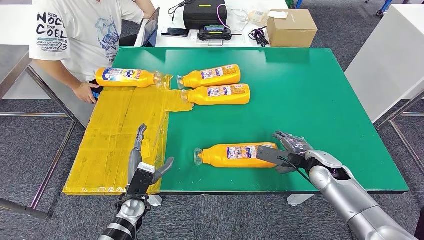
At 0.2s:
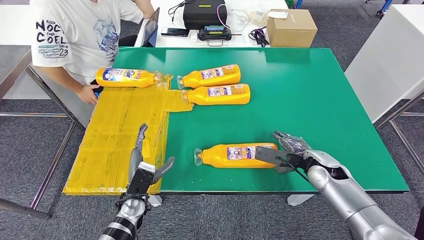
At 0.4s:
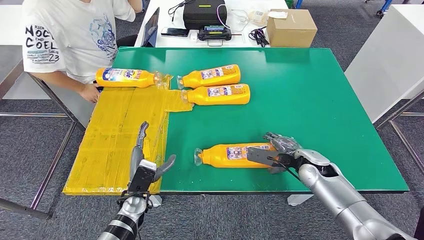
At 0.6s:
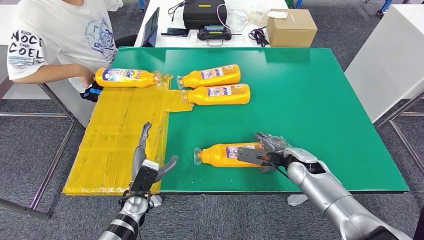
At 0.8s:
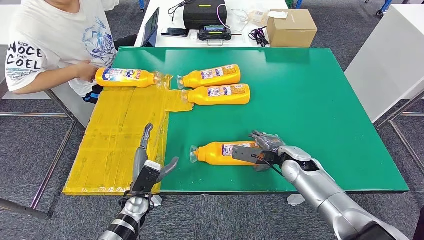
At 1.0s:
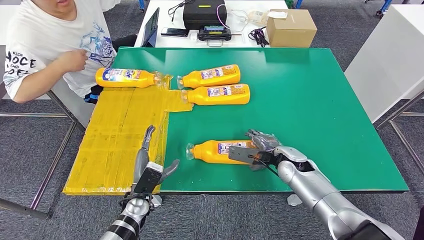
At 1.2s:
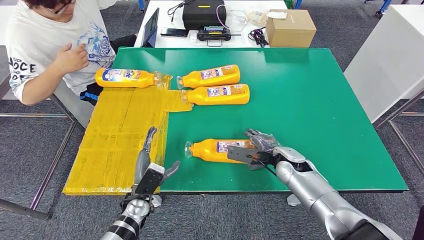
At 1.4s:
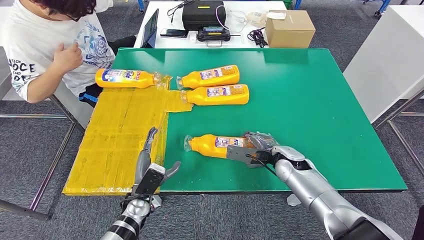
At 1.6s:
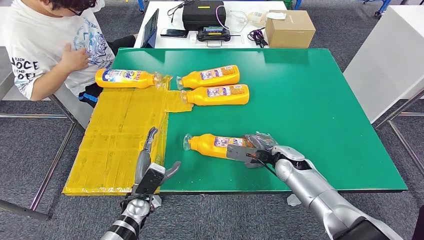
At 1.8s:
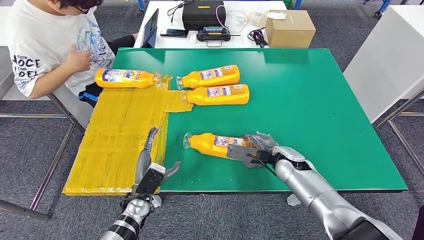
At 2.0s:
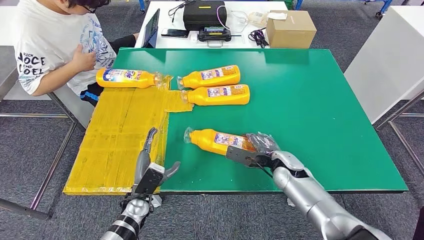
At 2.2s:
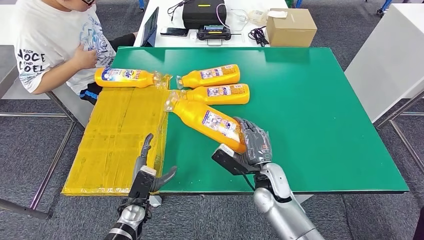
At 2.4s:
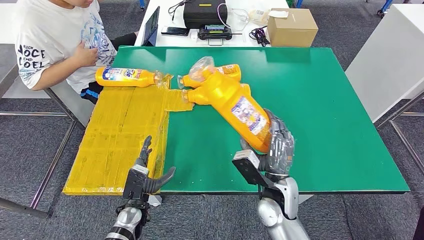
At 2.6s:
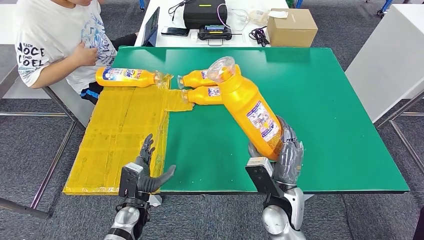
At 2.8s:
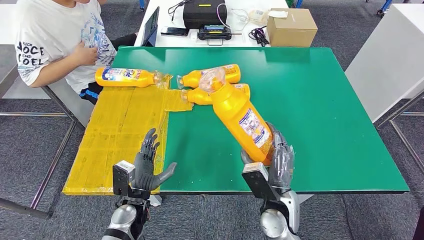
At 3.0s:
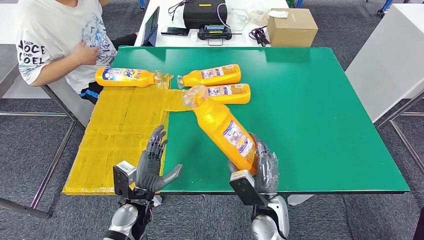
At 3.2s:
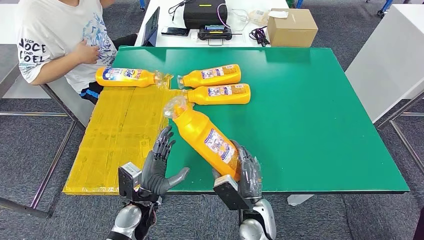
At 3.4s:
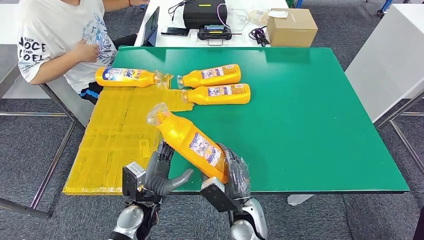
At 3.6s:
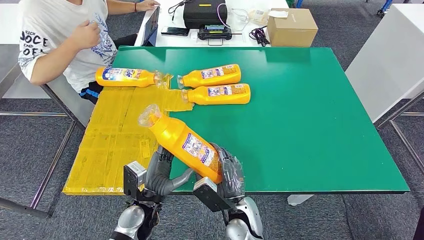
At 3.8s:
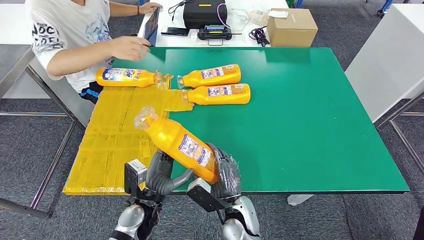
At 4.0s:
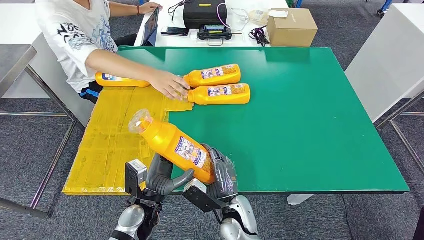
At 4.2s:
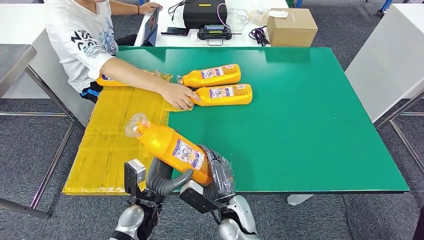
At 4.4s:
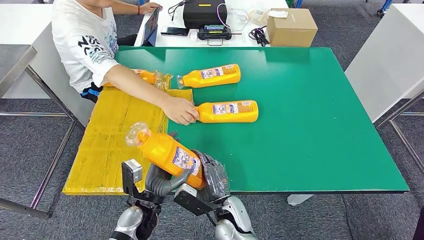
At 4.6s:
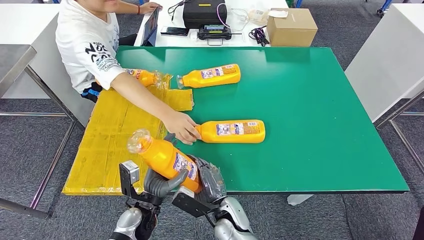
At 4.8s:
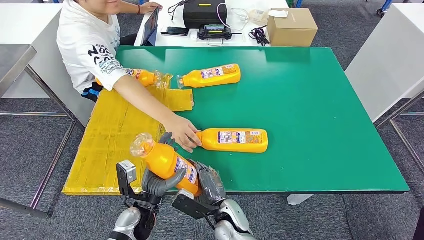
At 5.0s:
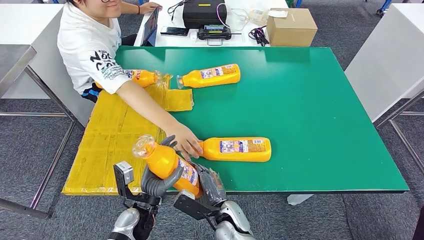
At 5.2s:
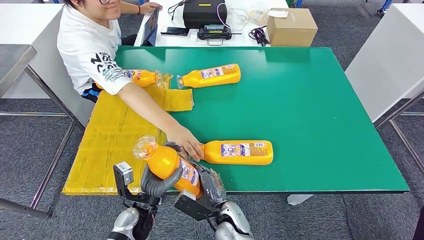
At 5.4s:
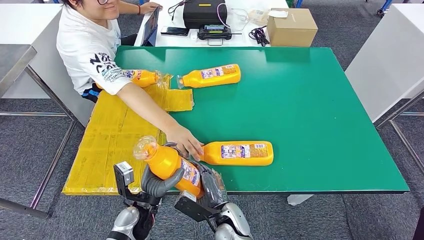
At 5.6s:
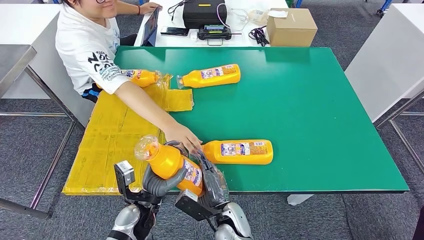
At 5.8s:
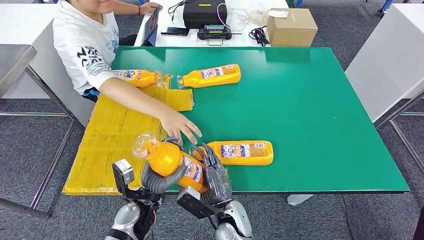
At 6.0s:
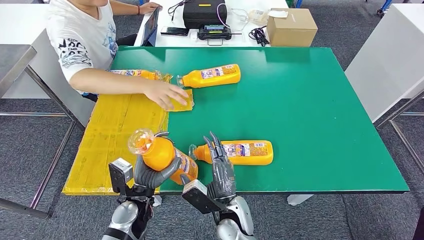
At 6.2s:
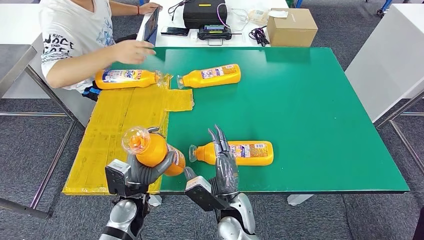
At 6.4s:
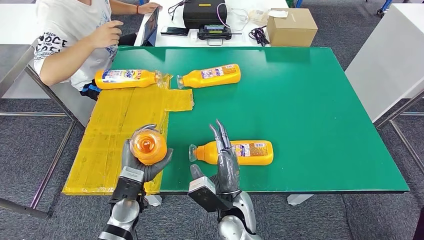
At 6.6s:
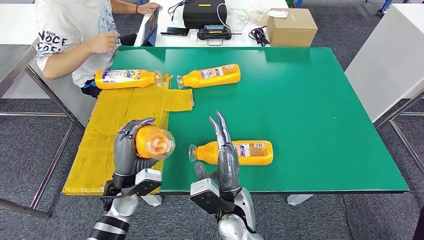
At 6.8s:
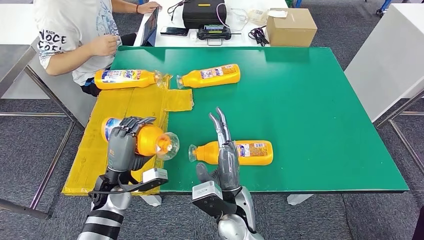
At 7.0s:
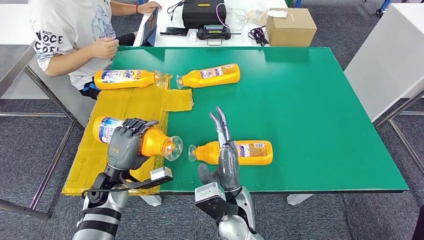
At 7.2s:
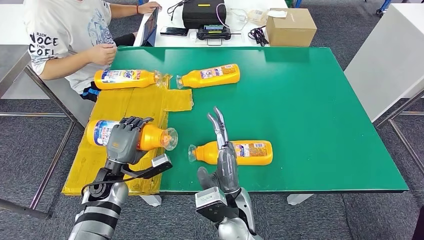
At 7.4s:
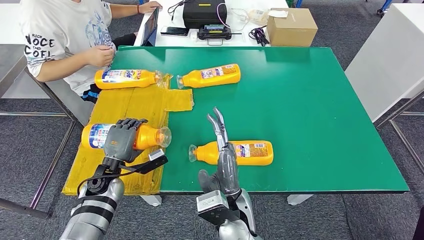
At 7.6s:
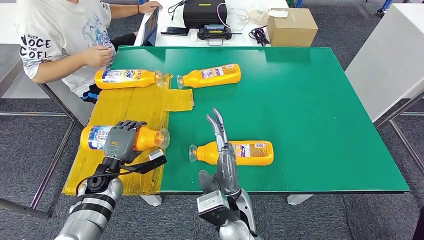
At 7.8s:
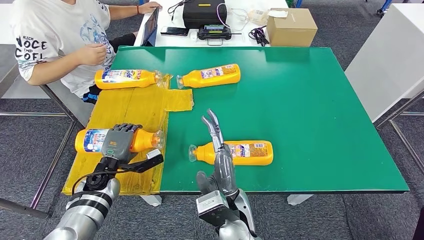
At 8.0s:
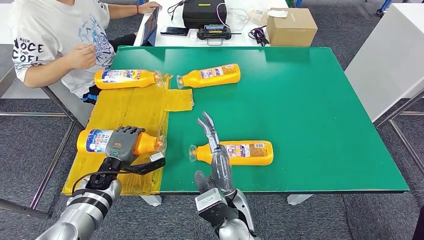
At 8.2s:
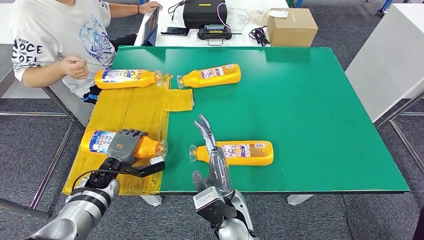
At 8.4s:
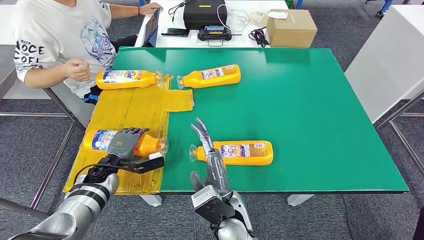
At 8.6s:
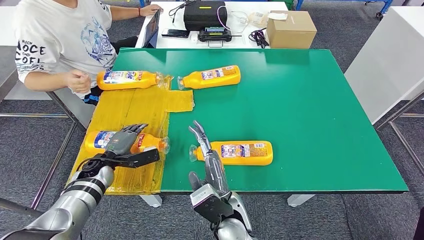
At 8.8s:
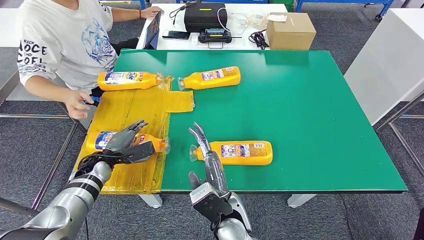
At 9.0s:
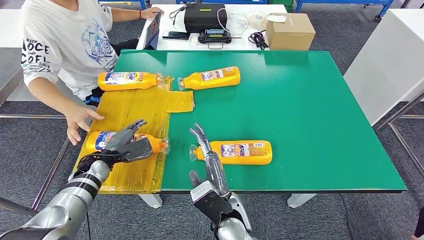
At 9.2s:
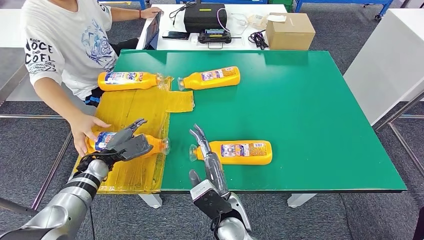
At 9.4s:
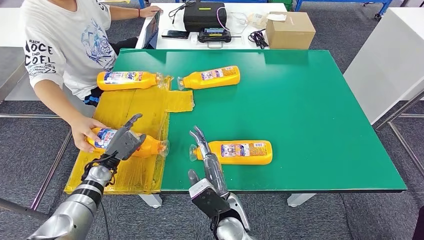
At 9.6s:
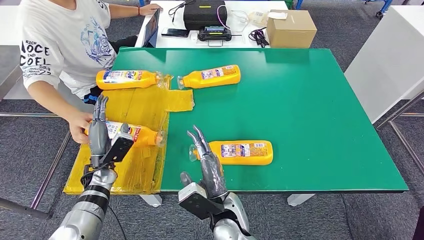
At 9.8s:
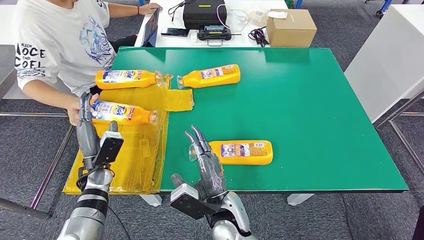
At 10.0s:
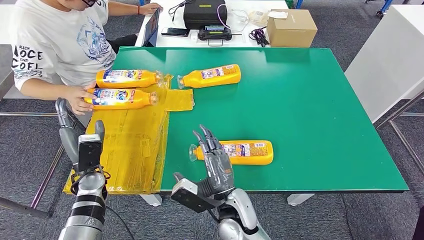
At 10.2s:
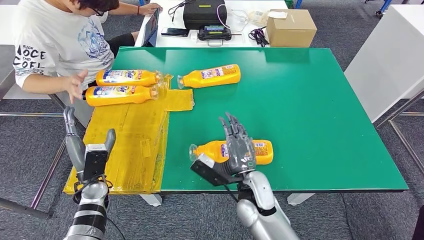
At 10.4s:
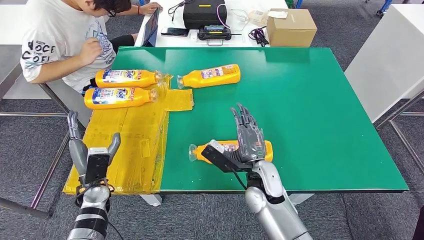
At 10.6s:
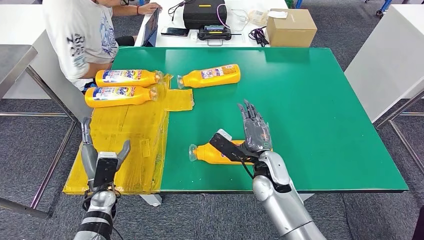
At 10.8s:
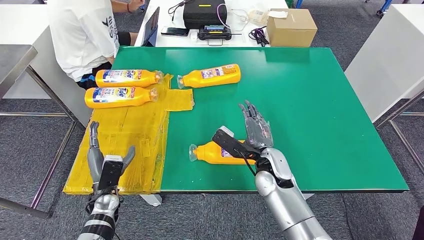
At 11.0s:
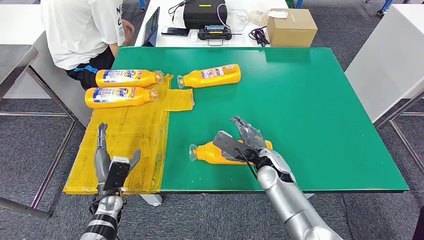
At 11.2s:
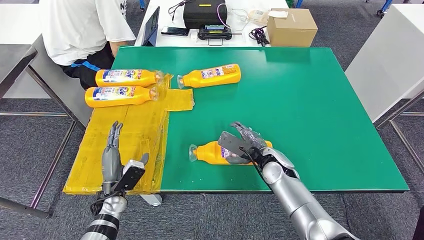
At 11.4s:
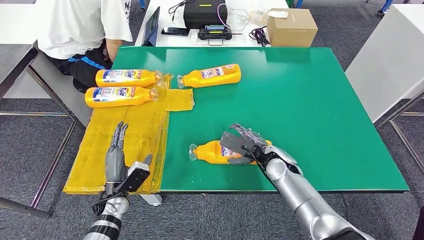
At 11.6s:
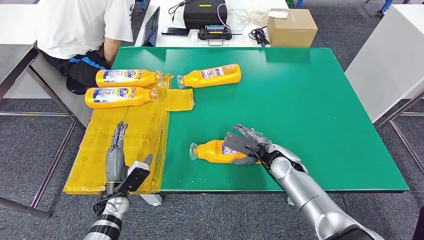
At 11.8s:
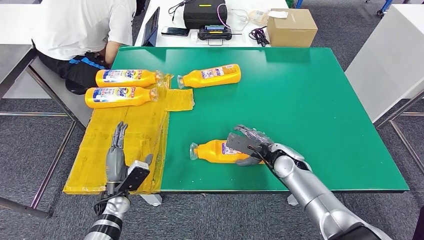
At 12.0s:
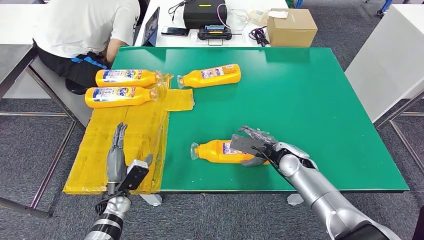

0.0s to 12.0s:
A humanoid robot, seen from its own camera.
Step, 0.0s to 4.4s: Pick up the fast-moving consumer goods bottle from the table.
Step, 4.6s to 9.0s: Flip the fast-moving consumer goods bottle to the front side.
4.4s to 6.0s: The hands stay close to where they were, moving slightly.
6.0s to 7.6s: The right hand goes about 10 cm upward; the left hand shifts approximately 15 cm to the left and forward.

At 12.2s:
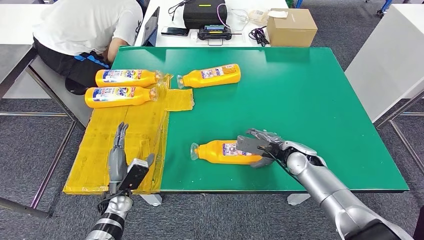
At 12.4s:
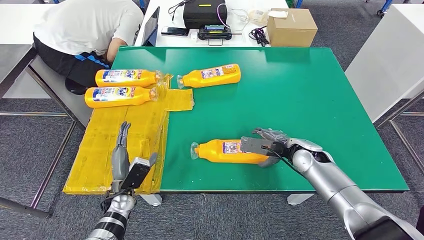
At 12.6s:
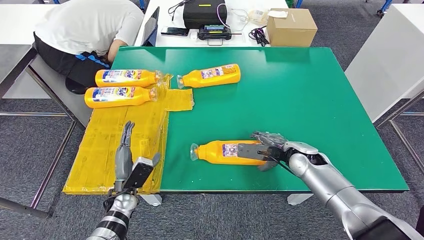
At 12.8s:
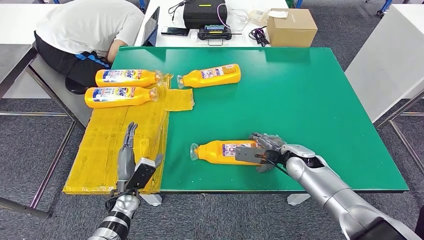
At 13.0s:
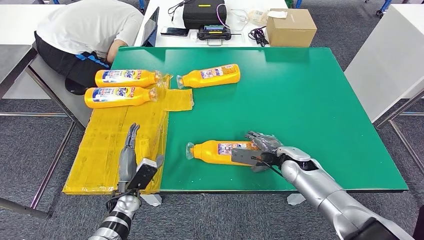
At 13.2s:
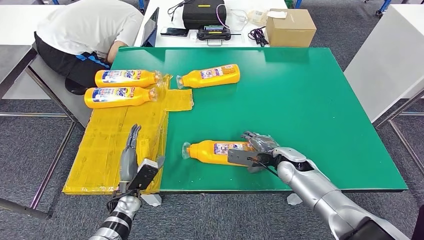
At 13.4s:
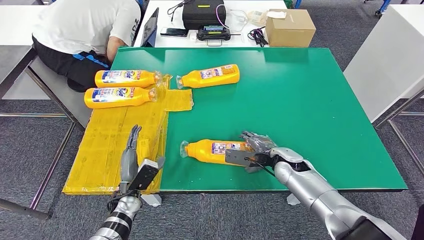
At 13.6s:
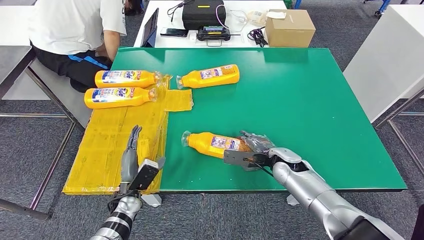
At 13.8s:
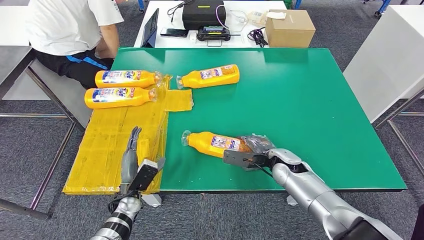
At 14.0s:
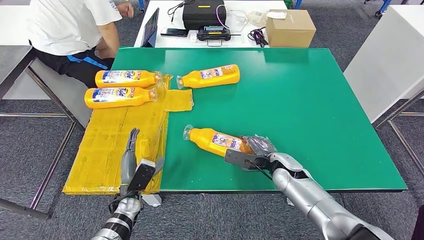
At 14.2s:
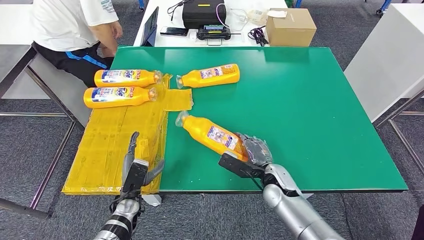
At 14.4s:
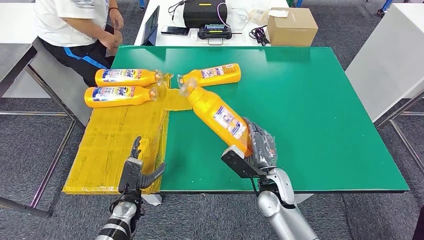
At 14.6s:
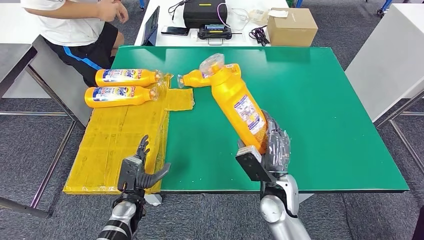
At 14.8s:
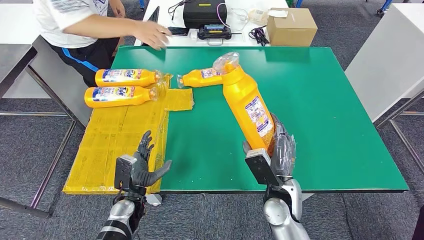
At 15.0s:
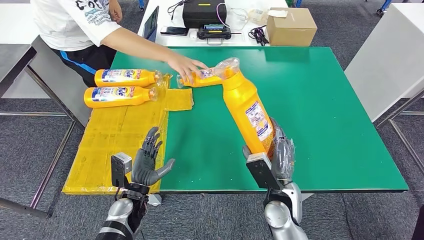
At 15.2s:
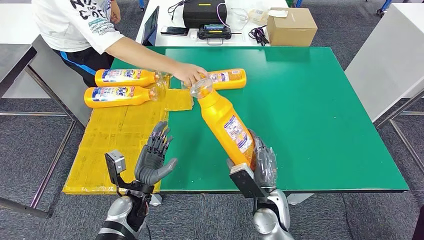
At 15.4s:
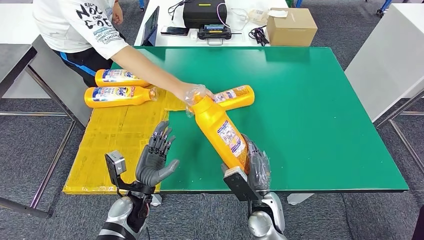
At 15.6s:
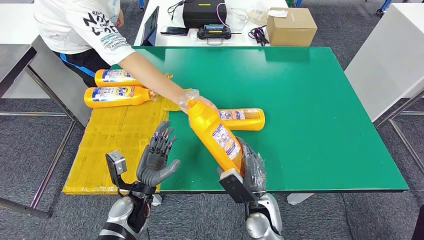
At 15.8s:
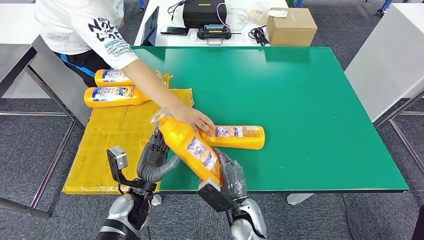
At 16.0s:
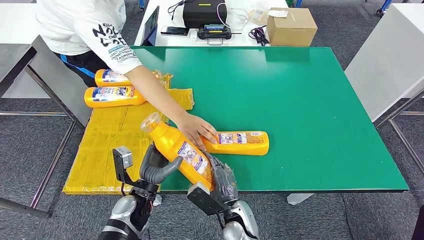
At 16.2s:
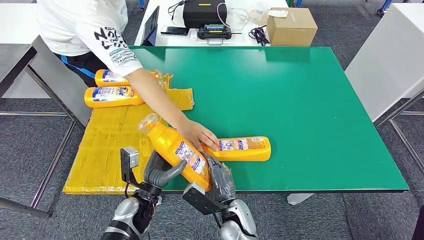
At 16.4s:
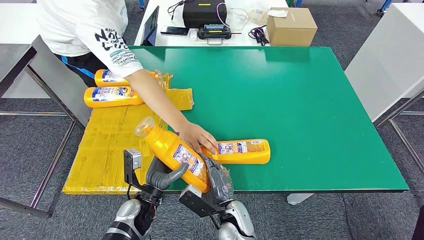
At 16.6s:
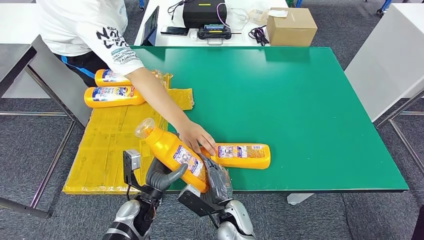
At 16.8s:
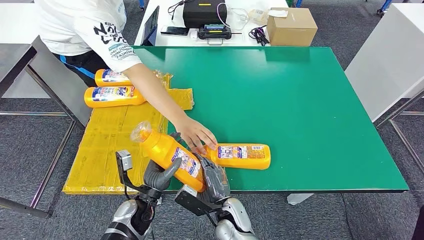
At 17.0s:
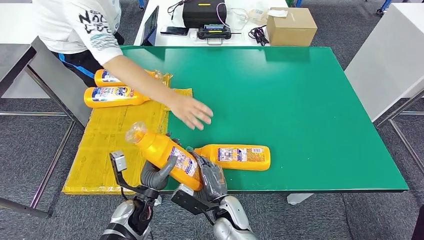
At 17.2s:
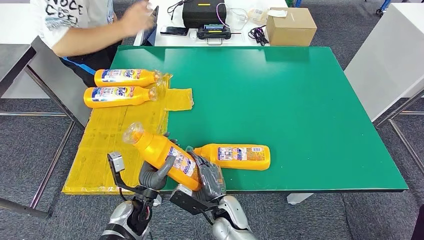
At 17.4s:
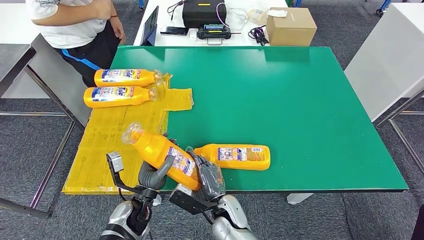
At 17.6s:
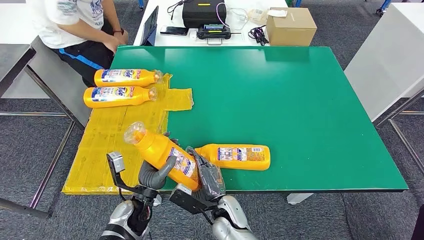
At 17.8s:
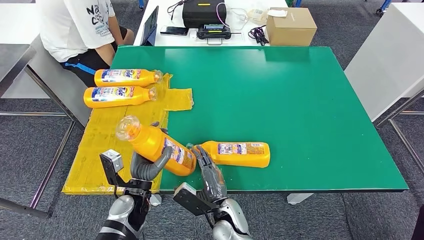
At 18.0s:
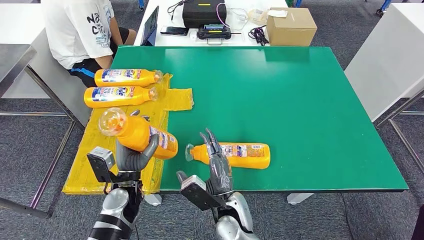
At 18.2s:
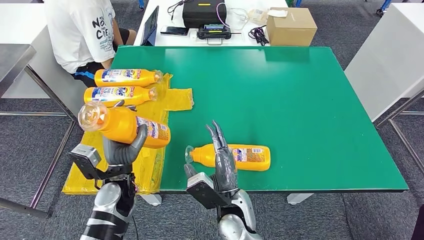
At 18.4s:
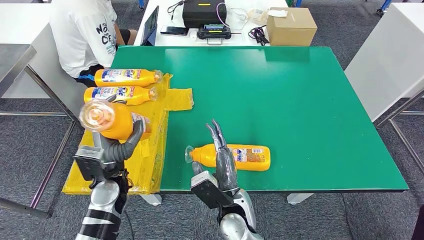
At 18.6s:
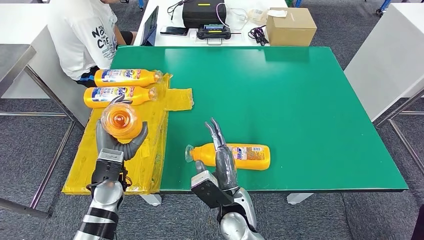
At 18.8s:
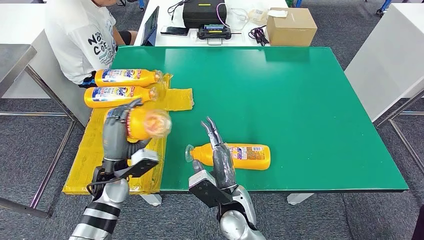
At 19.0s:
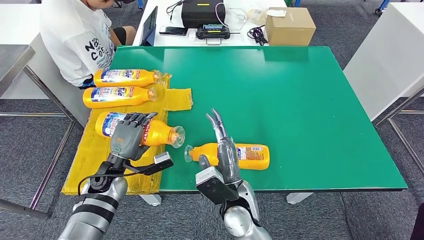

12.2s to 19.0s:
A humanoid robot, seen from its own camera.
Step, 12.2s to 16.0s: Pick up the fast-moving consumer goods bottle from the table.
12.2s to 13.6s: There are only small adjustments of the hands.
16.2s to 17.6s: There are only small adjustments of the hands.
